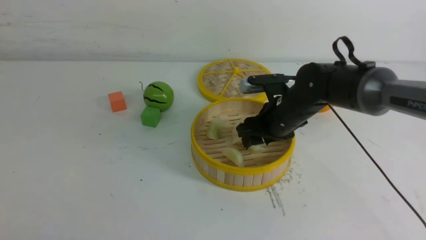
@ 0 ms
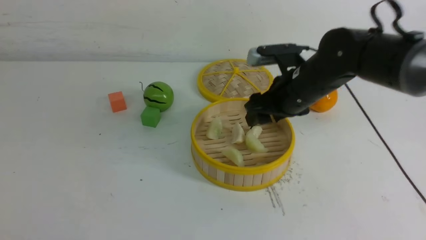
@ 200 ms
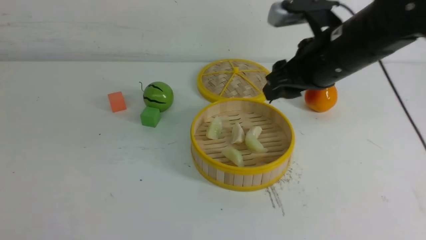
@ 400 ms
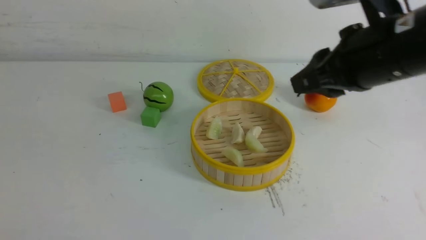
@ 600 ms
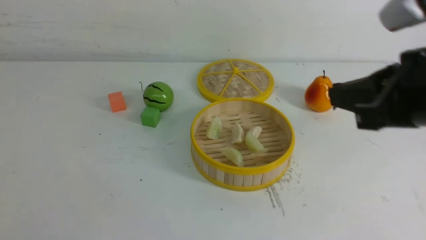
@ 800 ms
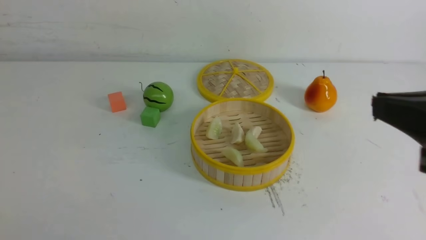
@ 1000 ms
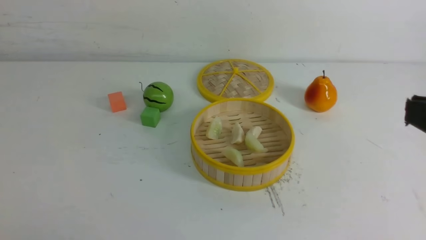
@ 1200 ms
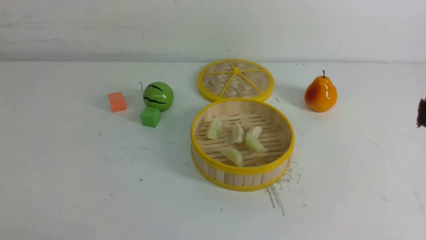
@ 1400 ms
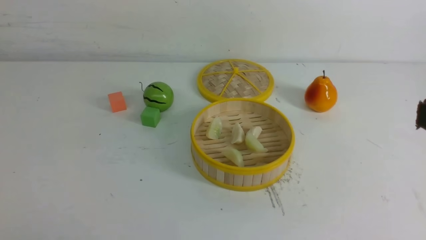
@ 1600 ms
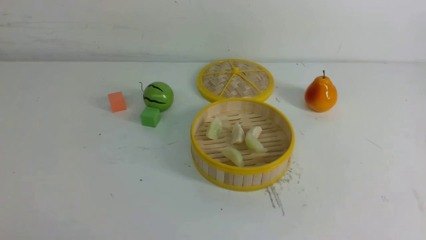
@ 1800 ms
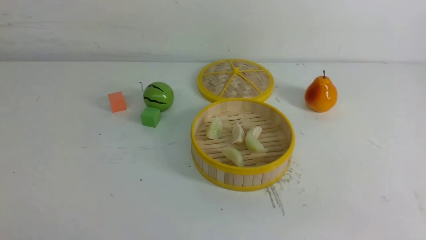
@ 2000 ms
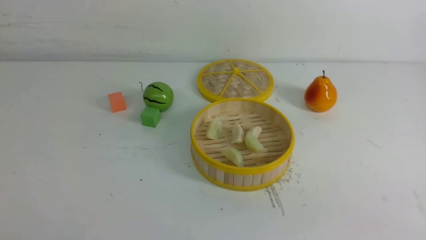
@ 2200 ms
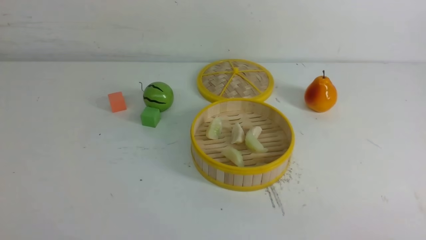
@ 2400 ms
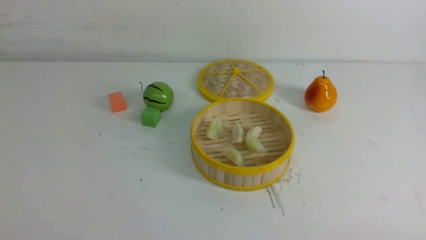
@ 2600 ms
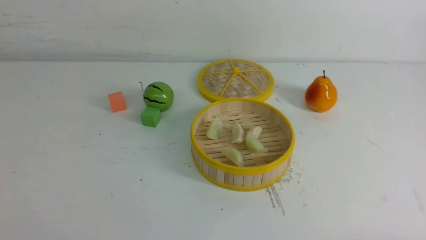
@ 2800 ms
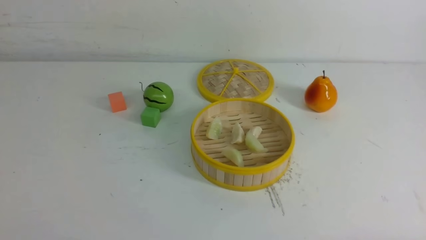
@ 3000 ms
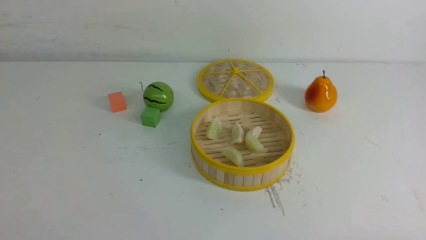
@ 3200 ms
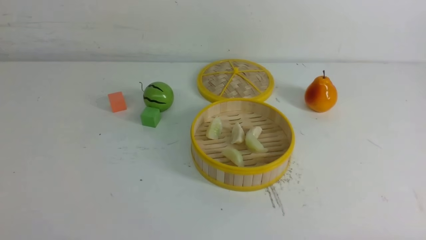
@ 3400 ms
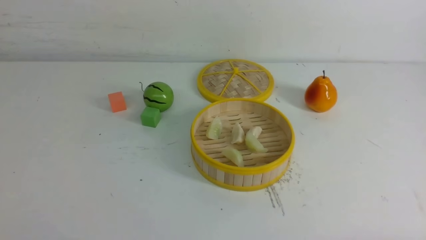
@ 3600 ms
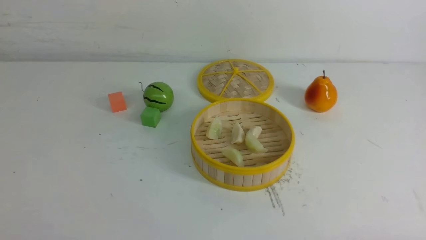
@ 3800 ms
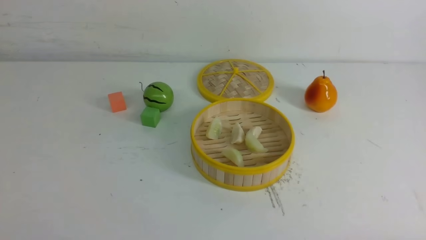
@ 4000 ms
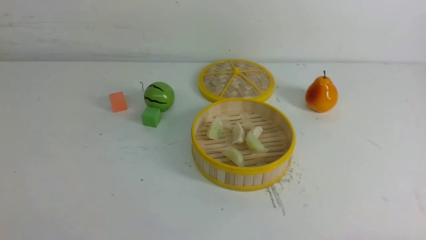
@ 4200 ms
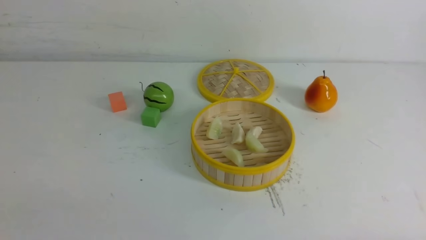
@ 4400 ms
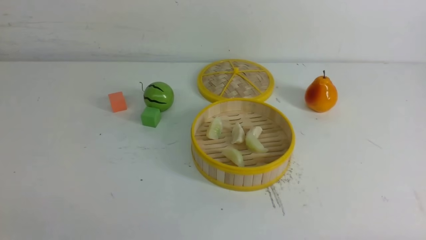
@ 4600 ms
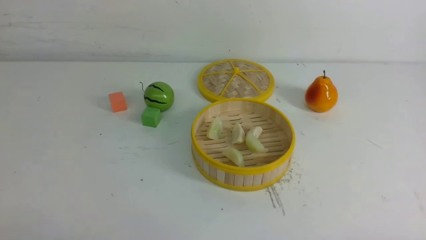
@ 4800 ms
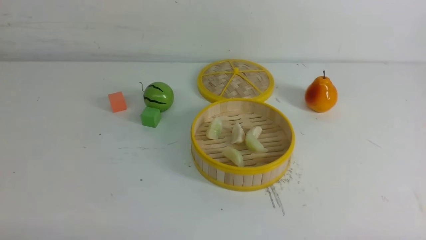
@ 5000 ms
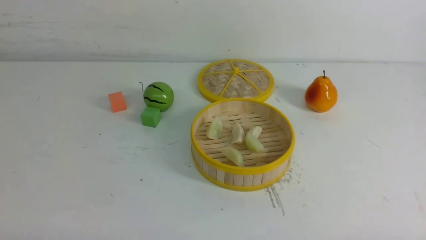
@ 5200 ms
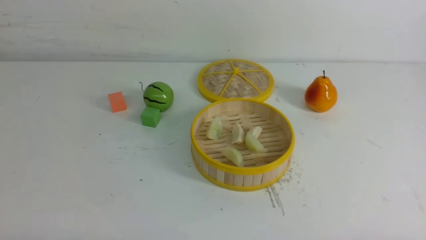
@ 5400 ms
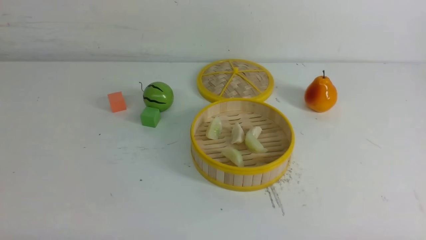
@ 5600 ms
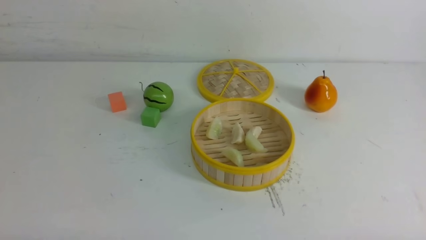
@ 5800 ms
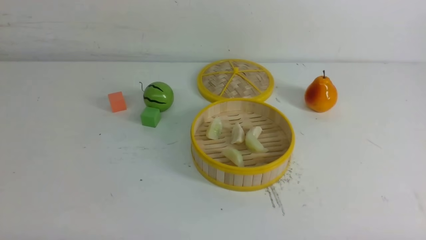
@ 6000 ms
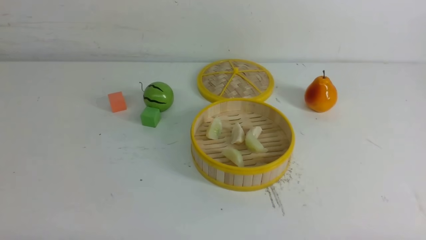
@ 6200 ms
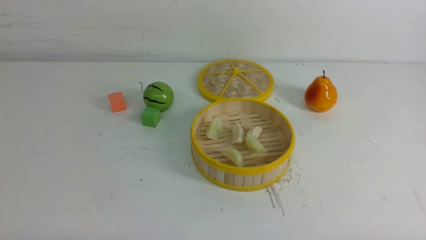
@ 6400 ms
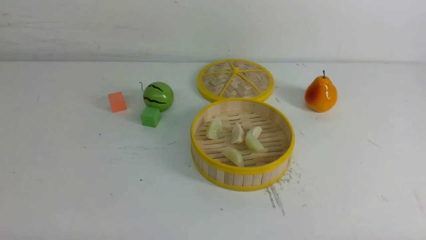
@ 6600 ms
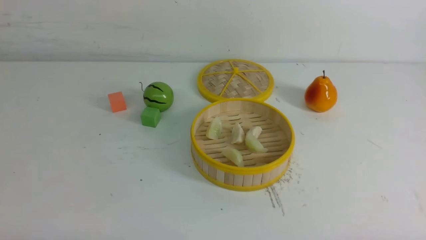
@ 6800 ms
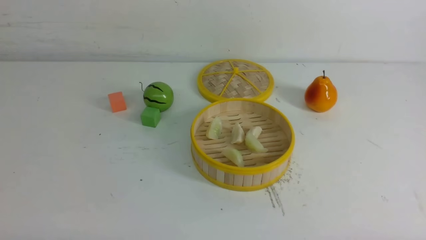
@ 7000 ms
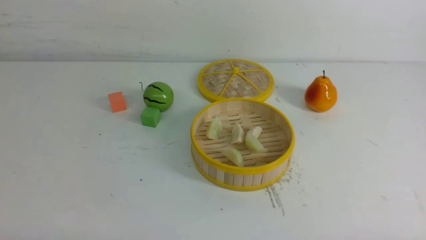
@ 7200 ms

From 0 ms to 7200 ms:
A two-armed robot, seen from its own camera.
Task of the whole recording: put the dumplings into the steamer on the white table.
From 0 ms to 1400 ms: The right gripper shifts roughly 35 cm backward, upward and to the right, and closes its fingers.
From 5800 ms to 7200 ms: Both grippers stay about where they are.
